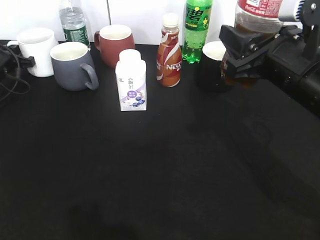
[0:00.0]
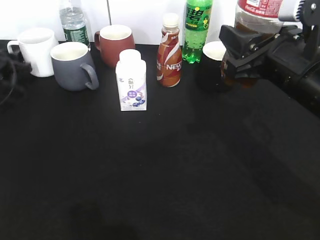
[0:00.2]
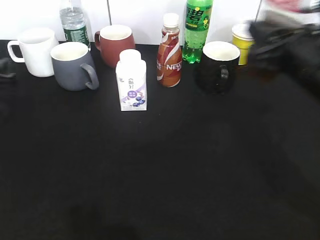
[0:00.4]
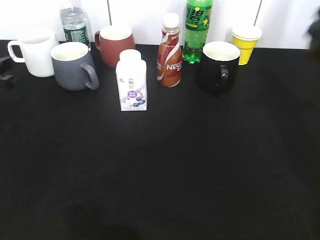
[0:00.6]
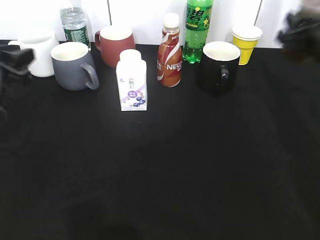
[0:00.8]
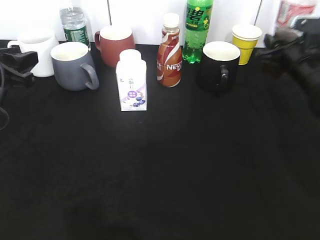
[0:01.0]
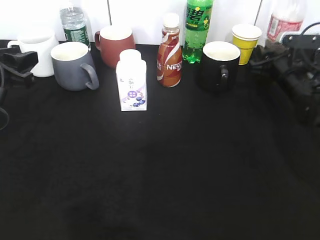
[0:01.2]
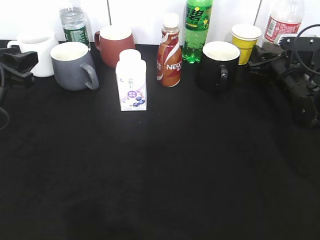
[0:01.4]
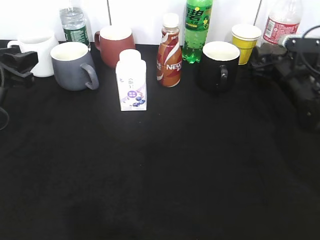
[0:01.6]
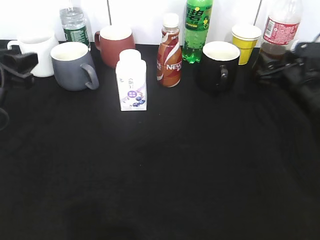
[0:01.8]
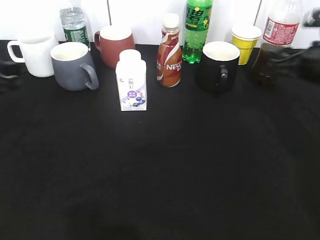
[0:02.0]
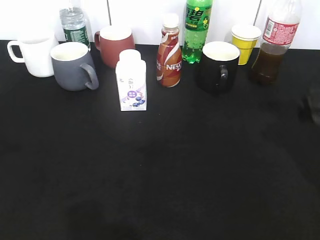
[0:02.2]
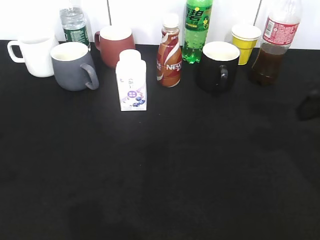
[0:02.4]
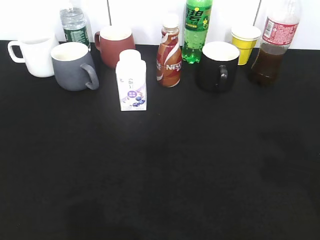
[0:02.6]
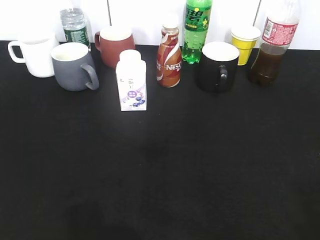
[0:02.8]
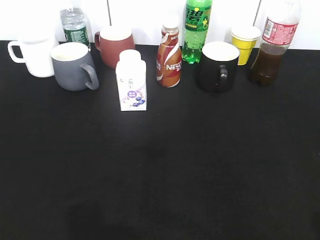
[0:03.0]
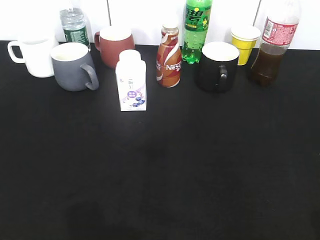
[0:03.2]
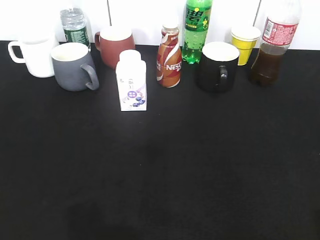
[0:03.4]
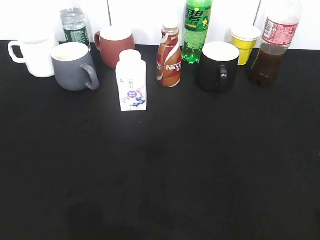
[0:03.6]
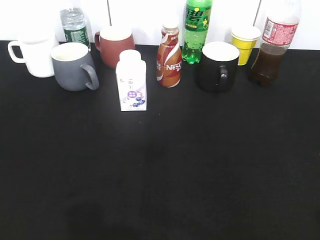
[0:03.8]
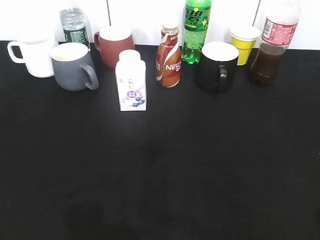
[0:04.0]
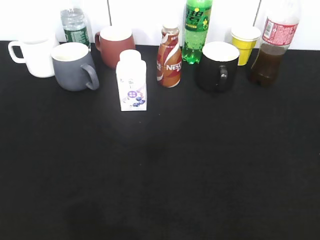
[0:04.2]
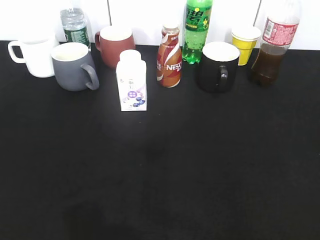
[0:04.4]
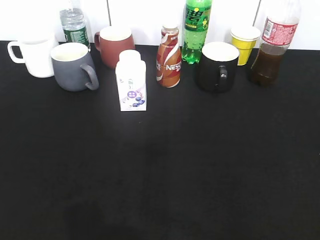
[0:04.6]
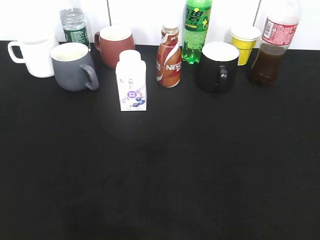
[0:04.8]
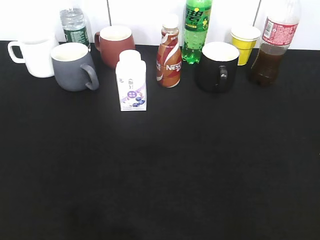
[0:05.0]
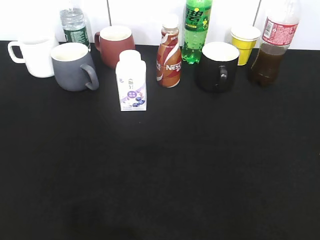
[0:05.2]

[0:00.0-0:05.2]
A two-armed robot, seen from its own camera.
Step, 0:00.4 to 0:01.4: Place the cola bottle on the table with right gripper.
0:00.0 to 0:01.8: The left gripper heads backward, upward and to the right, covering about 20 cm, and opens its fingers. Meanwhile the right gripper travels forward, downward and to the right by about 20 cm, and opens its fingers.
0:01.8 to 0:03.4: The left gripper moves backward, roughly 25 cm, and opens its fingers, while the right gripper shifts roughly 40 cm backward and upward.

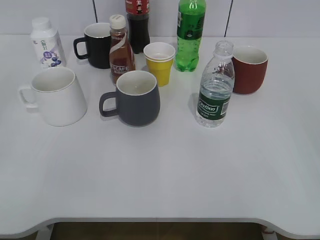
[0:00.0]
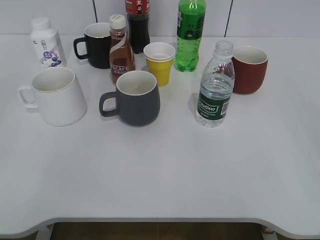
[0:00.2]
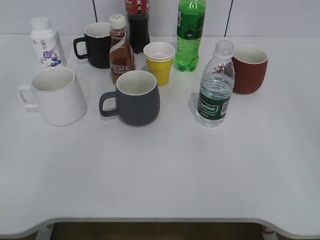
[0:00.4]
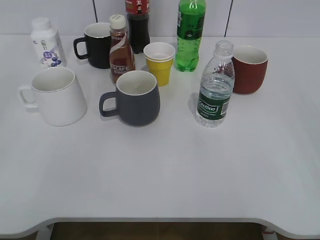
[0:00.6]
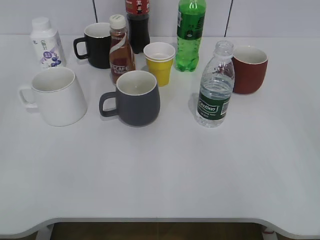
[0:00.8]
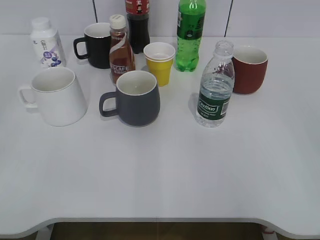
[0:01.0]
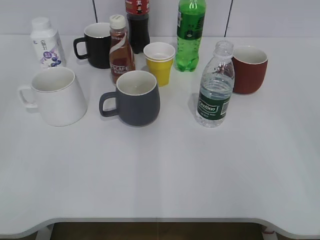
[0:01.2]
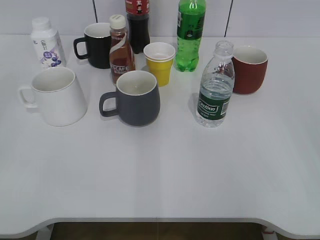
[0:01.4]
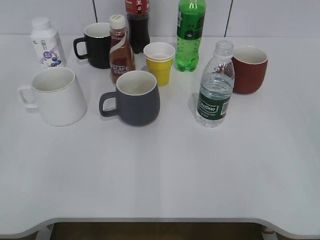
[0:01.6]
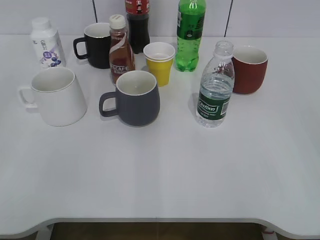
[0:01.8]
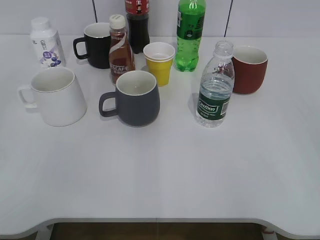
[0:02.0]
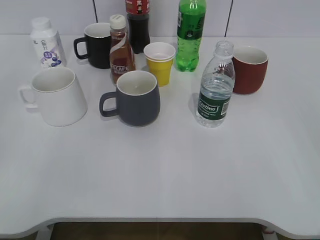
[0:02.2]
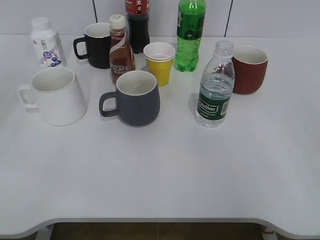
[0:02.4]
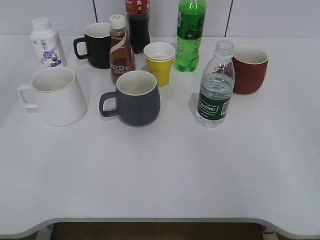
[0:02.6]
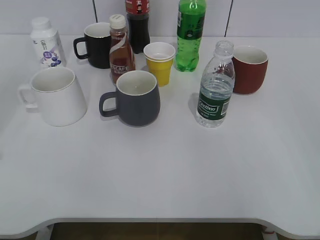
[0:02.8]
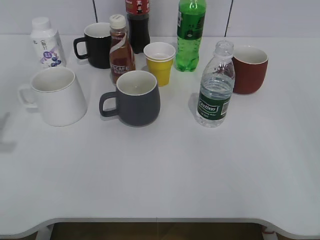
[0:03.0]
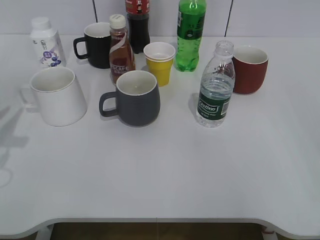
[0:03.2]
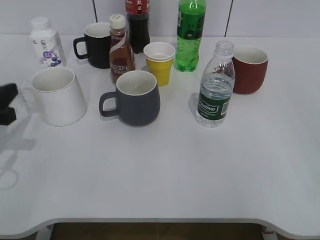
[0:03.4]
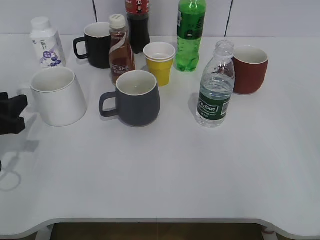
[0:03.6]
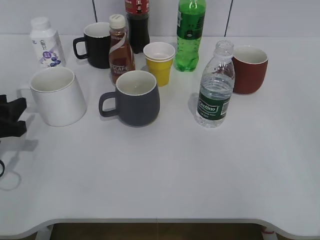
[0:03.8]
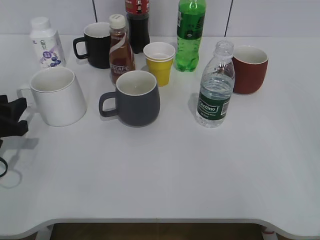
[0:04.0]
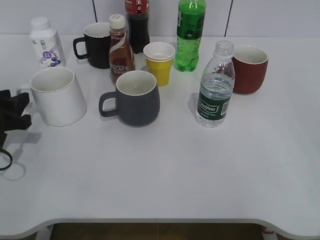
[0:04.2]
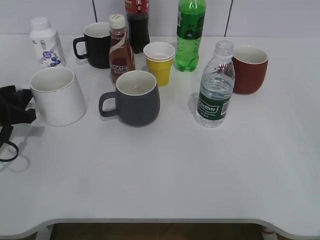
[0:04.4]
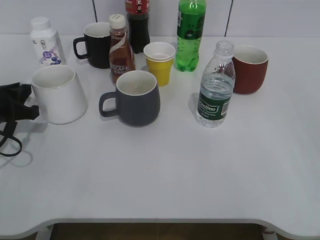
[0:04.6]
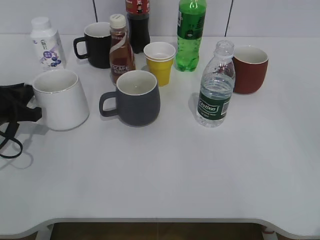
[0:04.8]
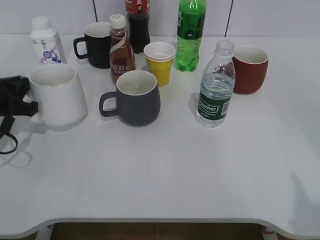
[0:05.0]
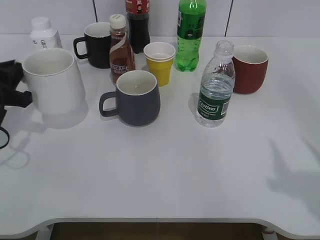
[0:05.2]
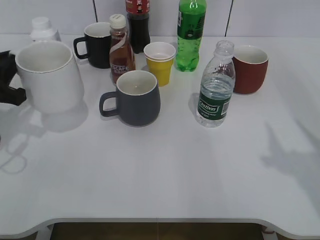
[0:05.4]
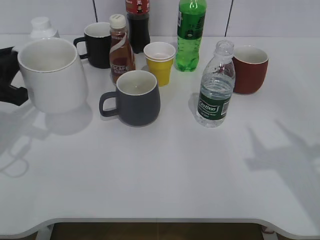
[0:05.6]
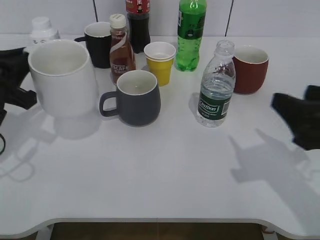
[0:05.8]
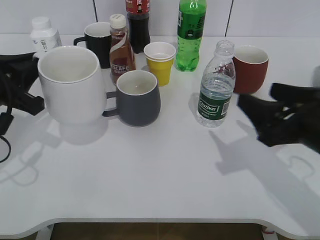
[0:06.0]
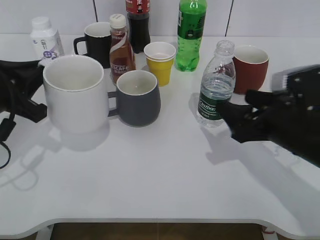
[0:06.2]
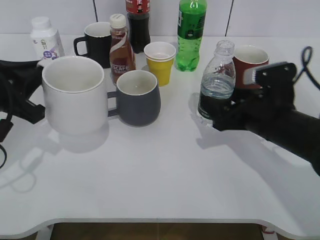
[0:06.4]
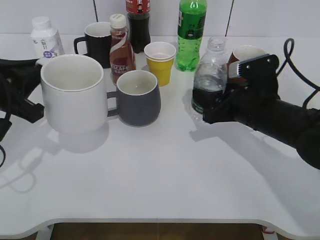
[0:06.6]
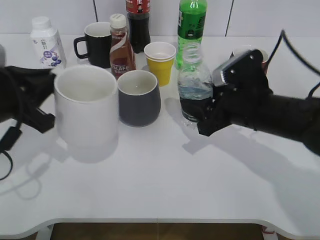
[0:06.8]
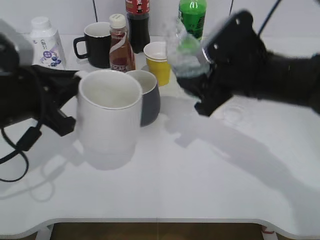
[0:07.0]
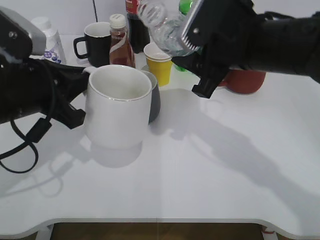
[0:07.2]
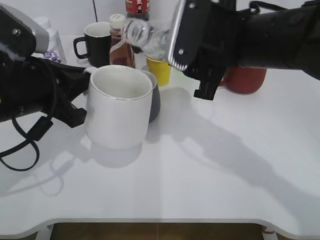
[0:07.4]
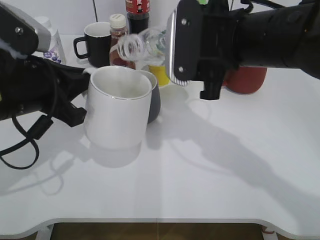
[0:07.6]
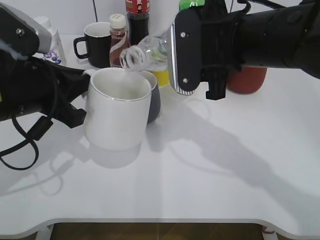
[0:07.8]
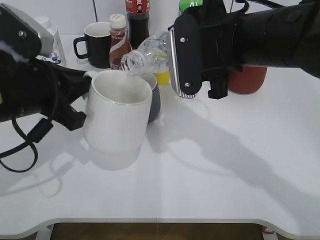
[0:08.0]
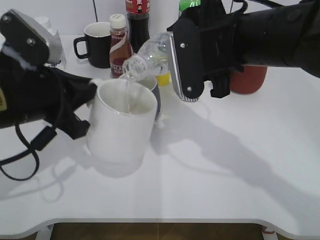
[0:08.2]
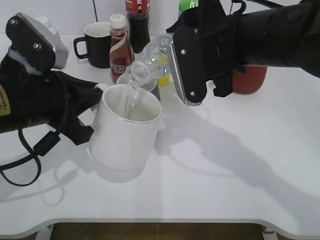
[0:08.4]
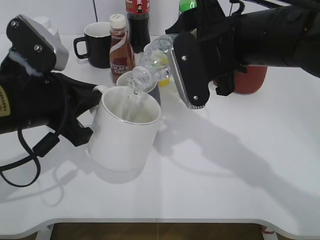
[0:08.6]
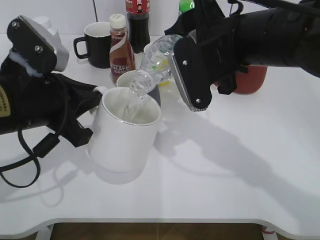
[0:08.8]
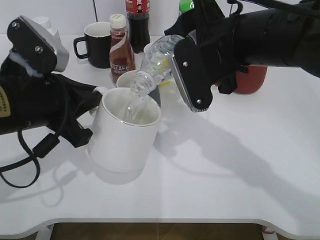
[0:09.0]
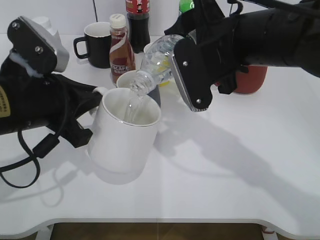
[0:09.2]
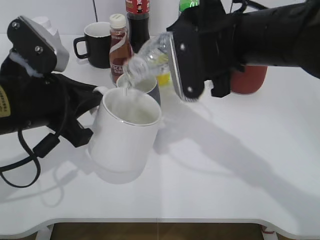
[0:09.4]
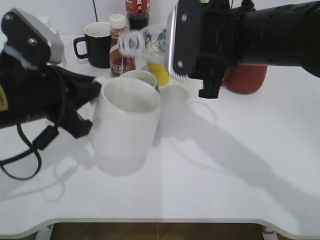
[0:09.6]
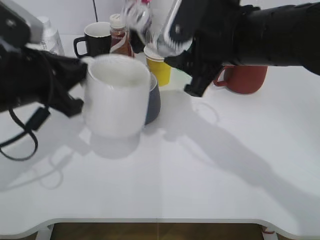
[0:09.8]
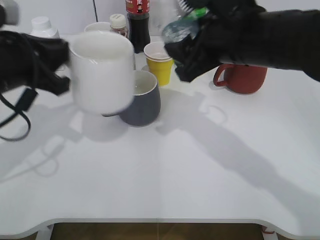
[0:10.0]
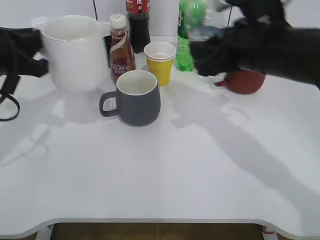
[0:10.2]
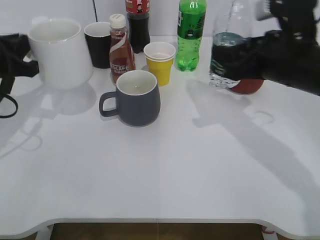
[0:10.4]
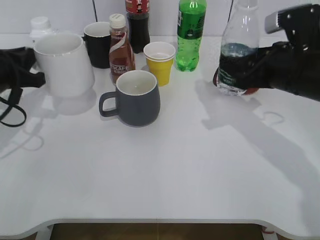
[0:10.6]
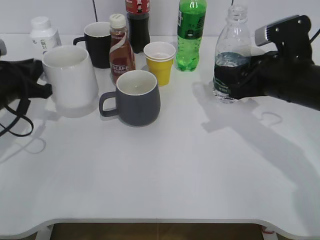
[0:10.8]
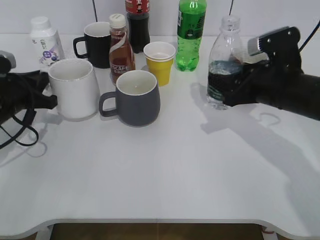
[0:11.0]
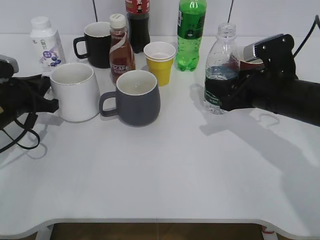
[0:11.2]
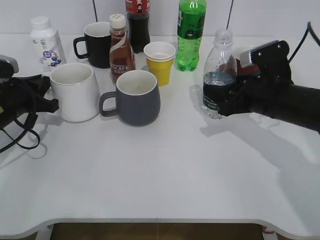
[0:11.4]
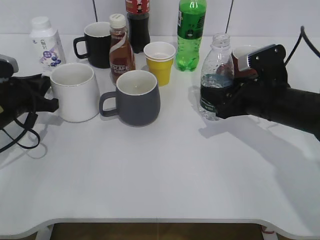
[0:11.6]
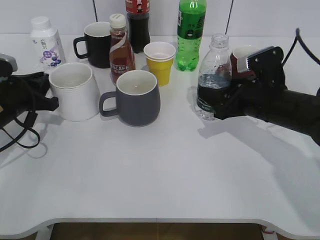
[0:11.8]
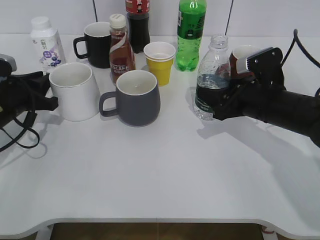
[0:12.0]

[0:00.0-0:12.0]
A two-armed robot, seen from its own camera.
Step, 0:02.0 to 0:04.4: Grasp the white cup with left gripper.
Step, 0:04.8 to 0:05.6: Lift the white cup with left gripper.
Step, 0:05.8 to 0:06.4: Grasp the bottle with water with right gripper.
Step, 0:06.8 to 0:09.6: Pour the water from bottle to cup with right gripper.
Step, 0:09.8 to 0:11.2: Place the white cup on the table with left gripper.
0:03.0 to 0:04.4: The left gripper is displaced downward and forward by roughly 15 cm.
0:04.4 to 0:06.0: The left gripper moves upward, about 10 cm, and closes up; the right gripper shifts roughly 25 cm forward, to the left and downward.
0:06.0 to 0:07.6: The left gripper shifts some 5 cm to the right, while the right gripper moves to the left, upward and forward, about 15 cm, and closes.
0:09.0 to 0:10.4: The right gripper is displaced to the right by about 10 cm. Meanwhile the left gripper shifts roughly 15 cm to the left and forward.
0:10.4 to 0:12.0: The grippers both shift downward by approximately 10 cm.

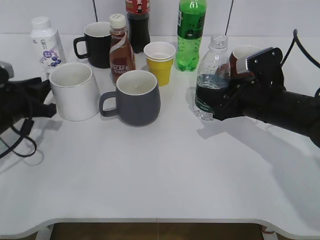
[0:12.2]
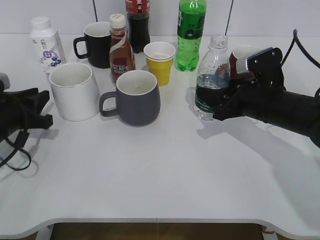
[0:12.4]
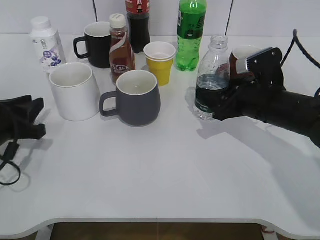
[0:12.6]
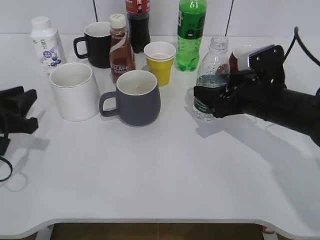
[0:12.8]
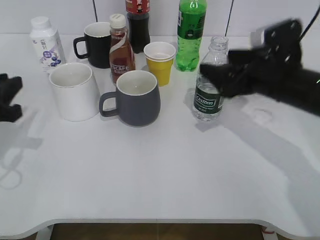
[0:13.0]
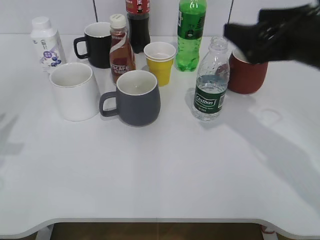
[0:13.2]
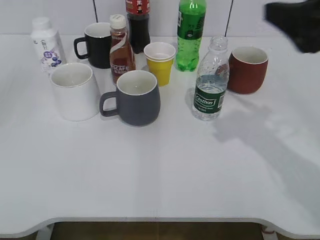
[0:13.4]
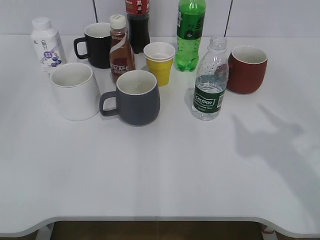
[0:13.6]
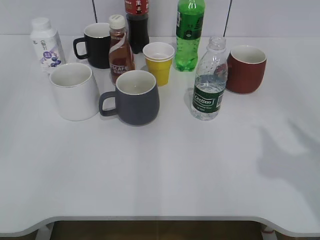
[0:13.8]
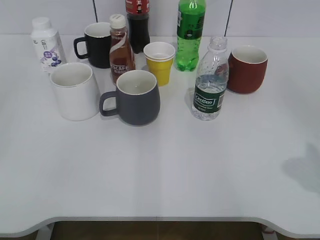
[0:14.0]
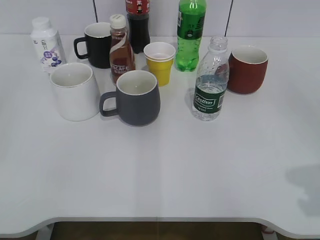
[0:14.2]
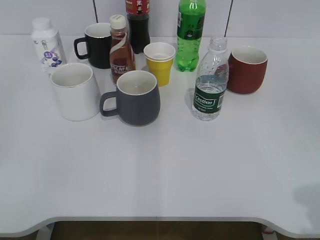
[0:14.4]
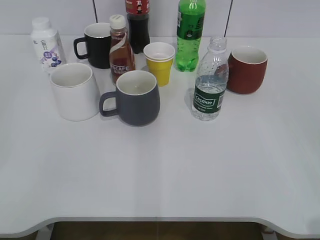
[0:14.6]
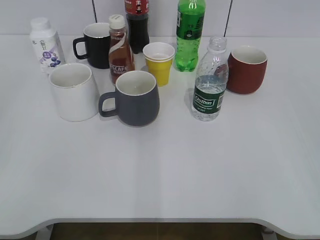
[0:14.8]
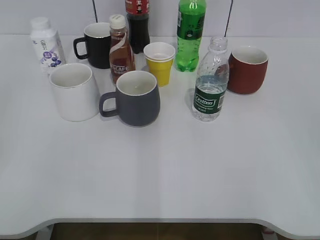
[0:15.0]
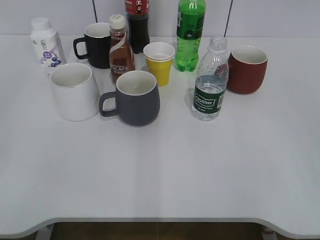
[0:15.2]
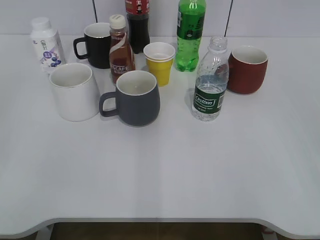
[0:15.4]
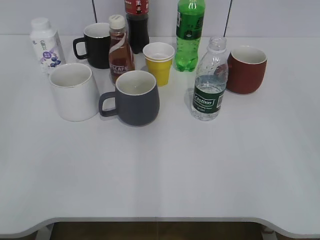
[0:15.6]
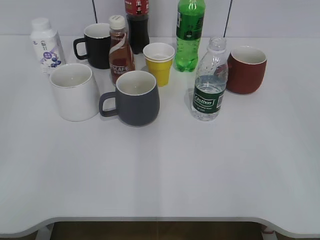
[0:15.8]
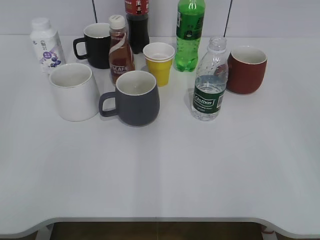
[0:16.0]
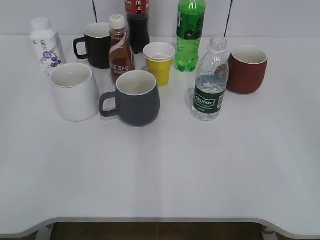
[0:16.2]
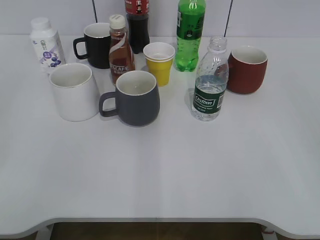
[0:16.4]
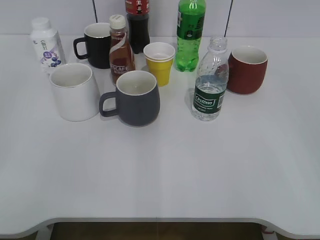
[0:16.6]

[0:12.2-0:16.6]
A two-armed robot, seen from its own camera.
0:12.2 to 0:13.6: The left gripper goes approximately 30 cm backward and upward, and opens up. The right gripper shifts approximately 25 cm upward and backward, and opens up.
0:13.6 to 0:15.2: The left gripper moves backward, roughly 5 cm; the right gripper shifts about 15 cm backward, and closes its fingers.
